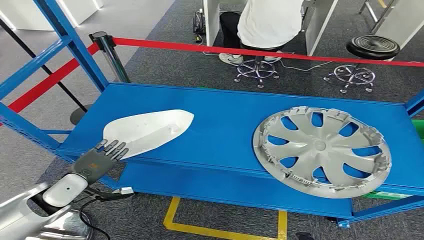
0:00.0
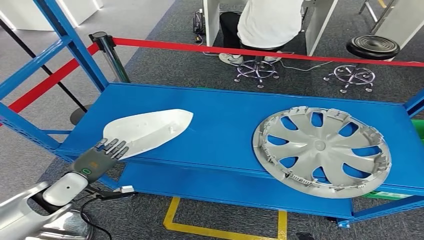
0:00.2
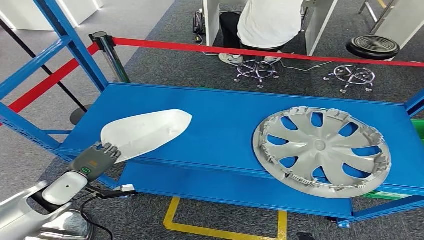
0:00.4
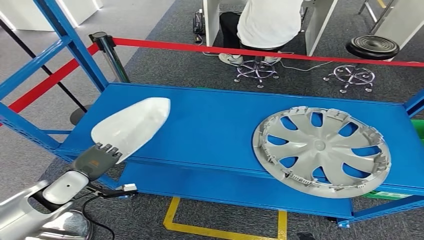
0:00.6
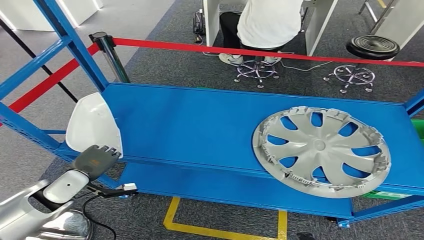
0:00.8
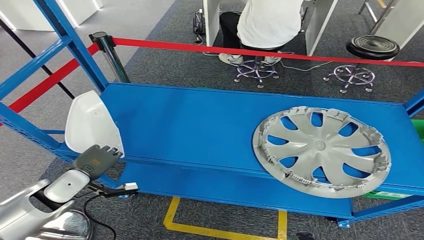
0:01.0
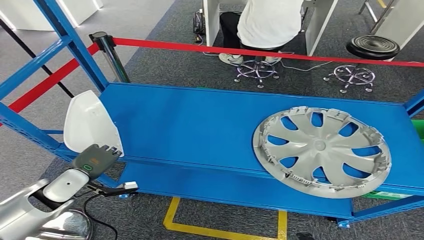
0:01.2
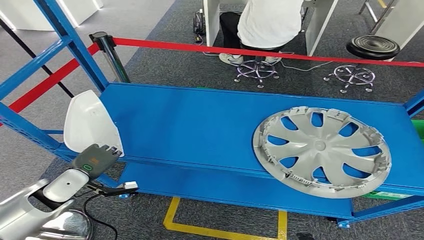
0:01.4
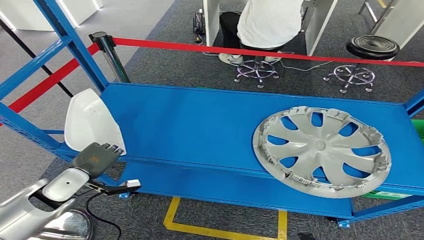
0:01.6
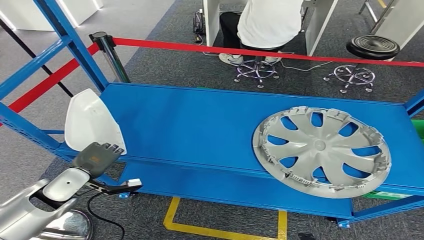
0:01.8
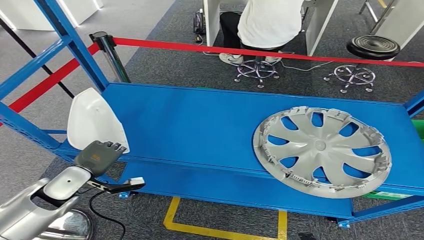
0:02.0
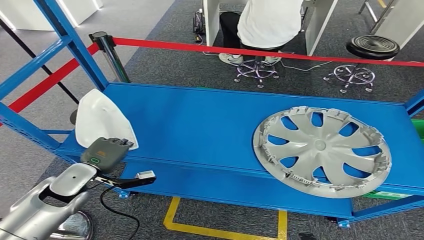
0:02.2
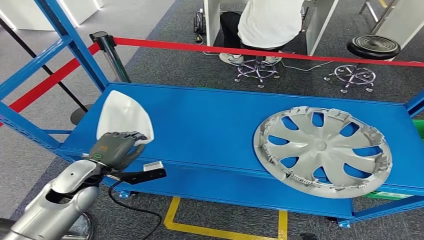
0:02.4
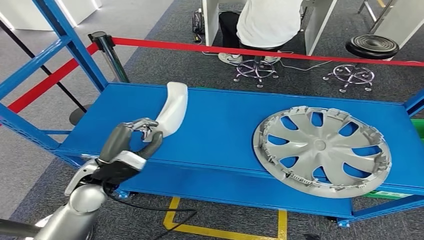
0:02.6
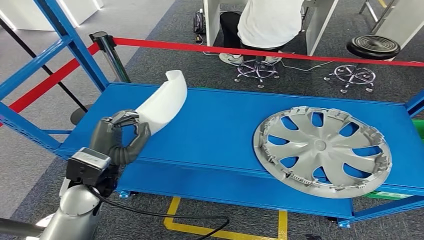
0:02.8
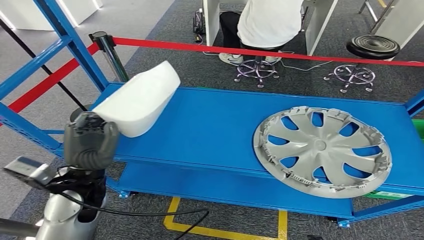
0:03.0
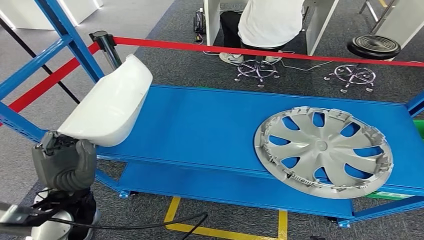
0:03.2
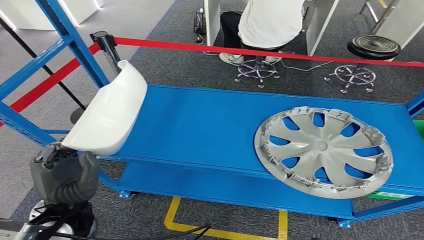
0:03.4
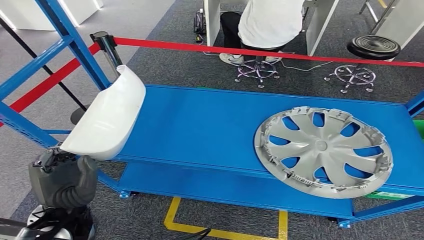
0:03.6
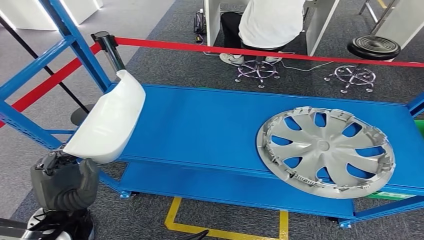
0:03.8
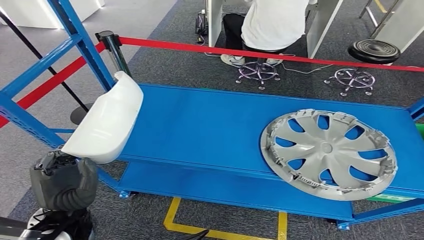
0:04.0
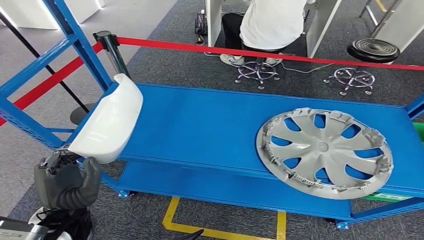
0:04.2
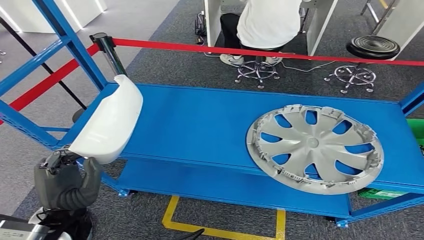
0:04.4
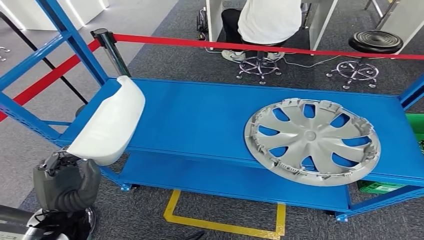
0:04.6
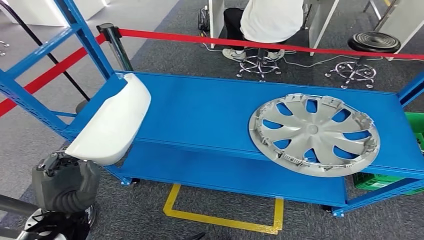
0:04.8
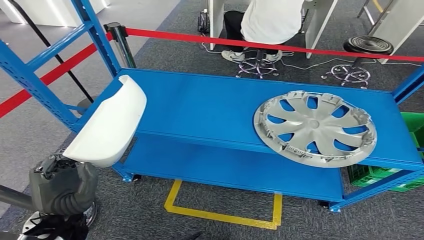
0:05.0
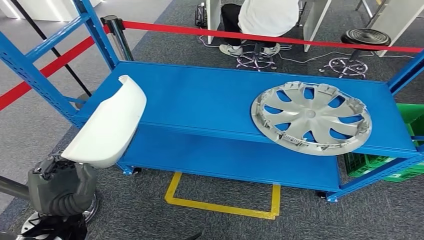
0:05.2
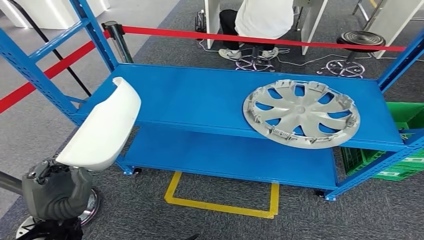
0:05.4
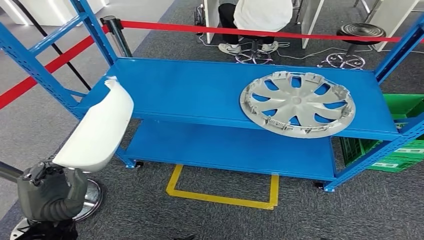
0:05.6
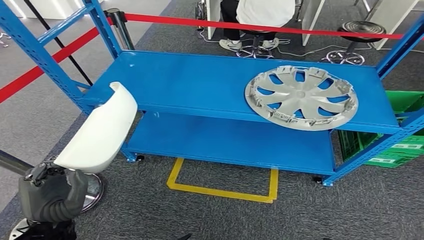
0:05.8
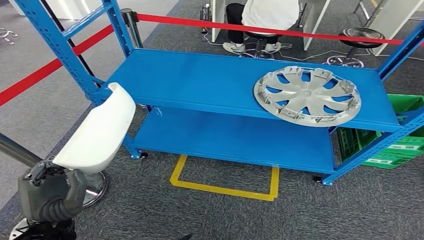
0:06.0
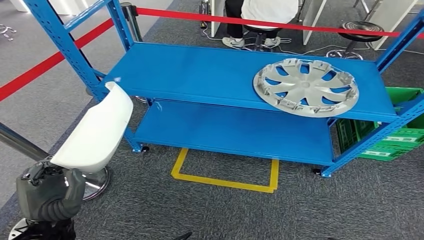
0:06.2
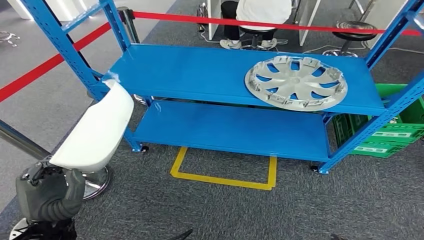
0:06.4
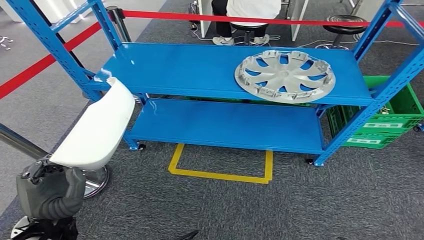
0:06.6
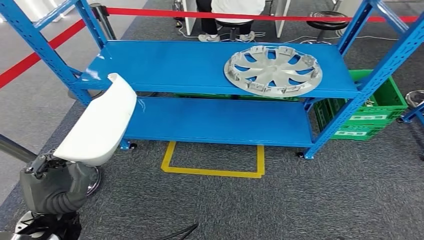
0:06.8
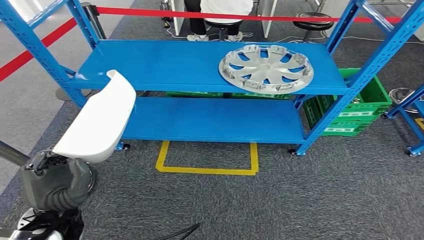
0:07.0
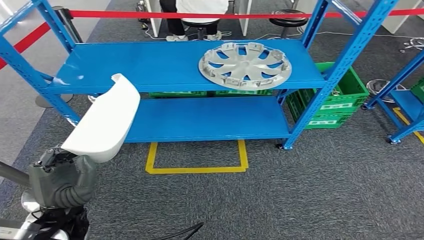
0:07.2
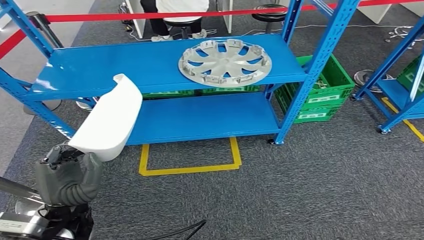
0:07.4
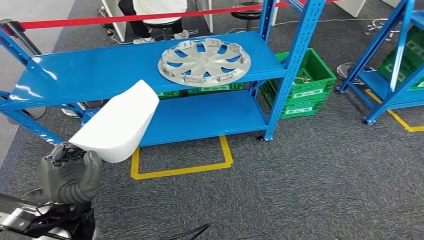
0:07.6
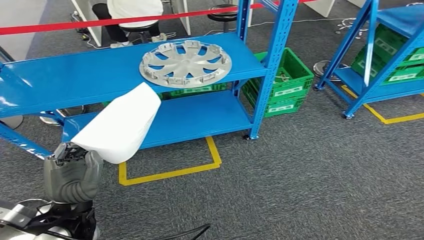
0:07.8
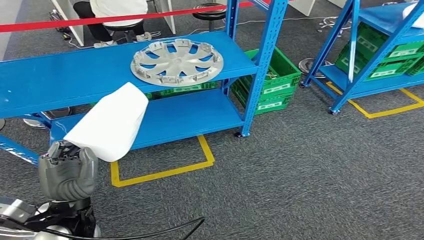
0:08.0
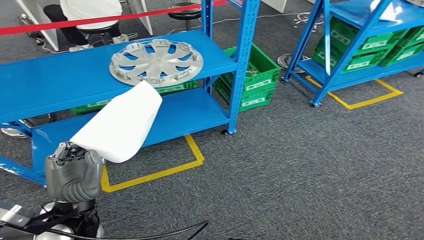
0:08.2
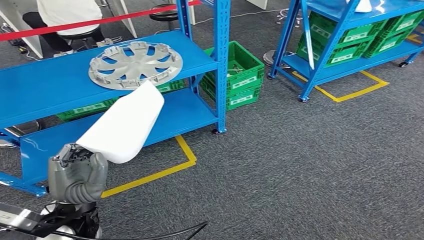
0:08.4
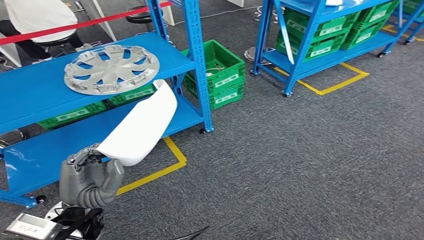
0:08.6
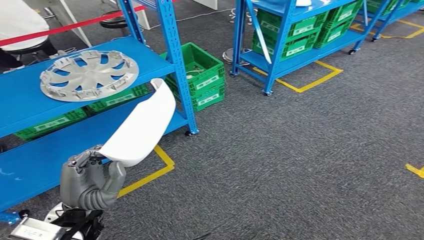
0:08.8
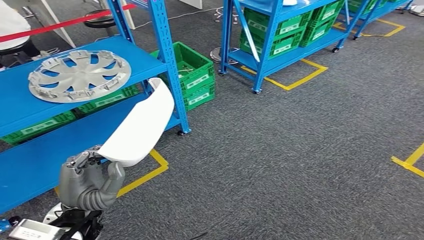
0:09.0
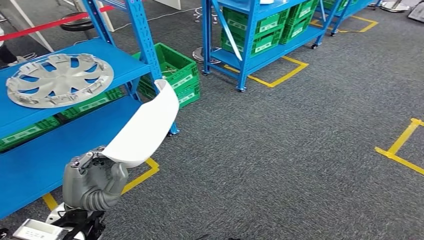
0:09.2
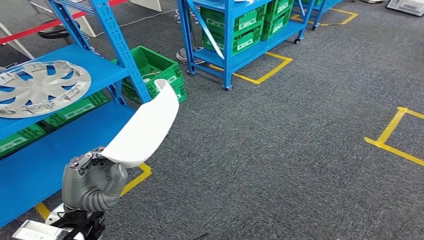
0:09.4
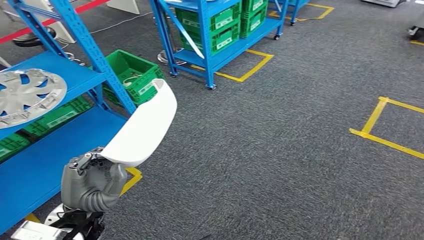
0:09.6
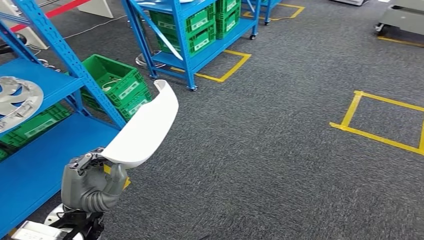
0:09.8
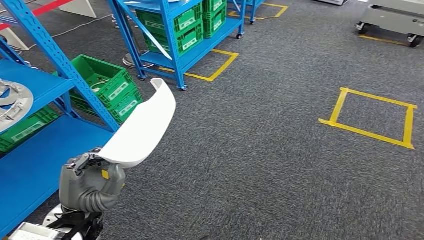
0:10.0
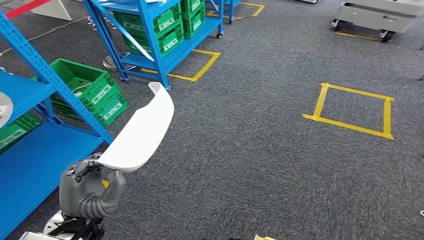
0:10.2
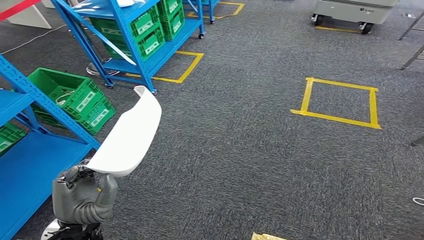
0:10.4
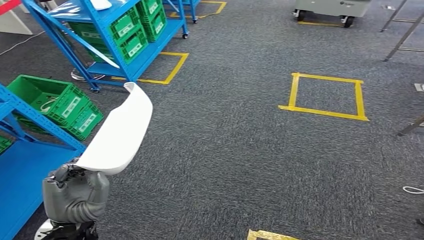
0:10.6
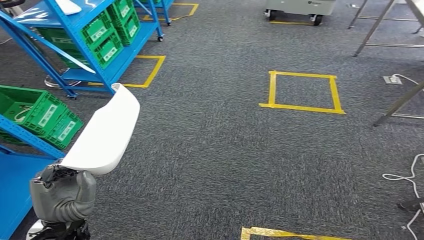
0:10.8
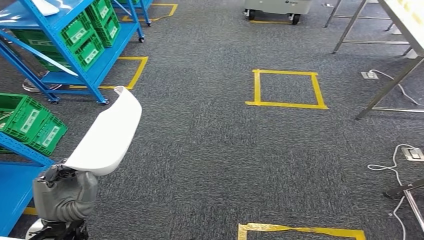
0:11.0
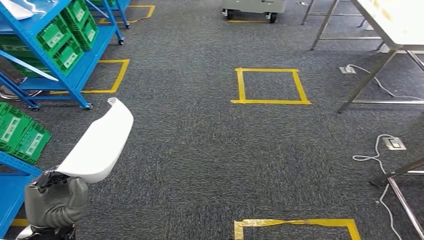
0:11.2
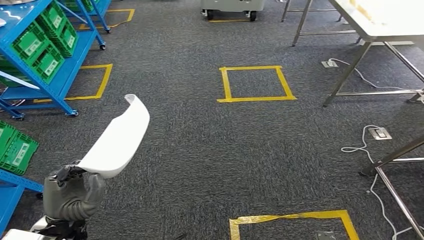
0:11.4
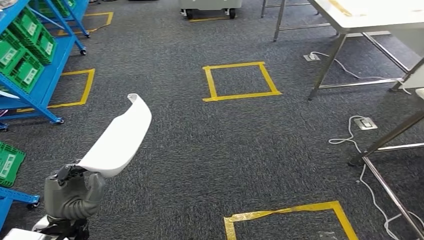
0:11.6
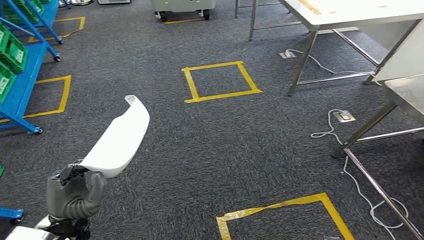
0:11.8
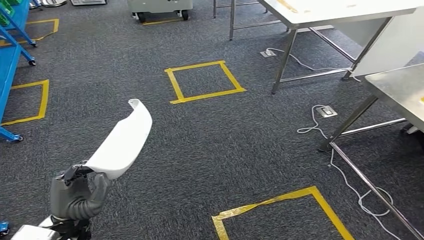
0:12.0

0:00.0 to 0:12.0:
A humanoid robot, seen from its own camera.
Step, 0:00.0 to 0:03.8: Pick up the small component from the shelf.
0:01.6 to 0:03.0: The left hand travels to the right and upward by roughly 15 cm.

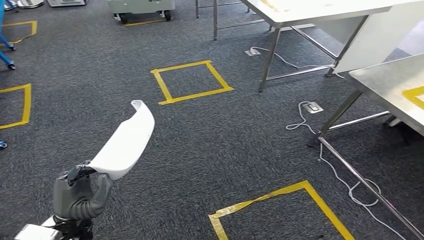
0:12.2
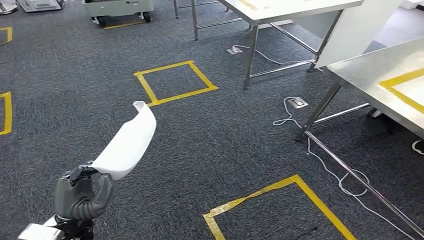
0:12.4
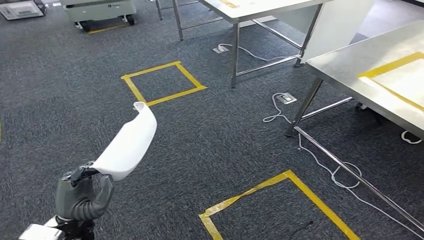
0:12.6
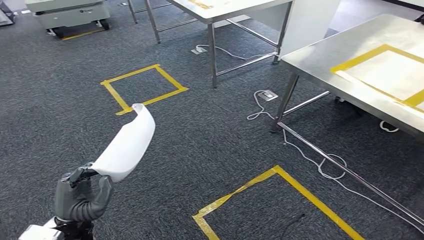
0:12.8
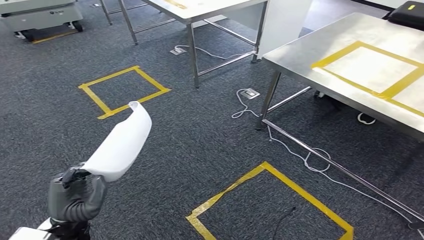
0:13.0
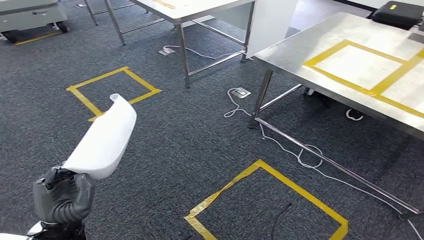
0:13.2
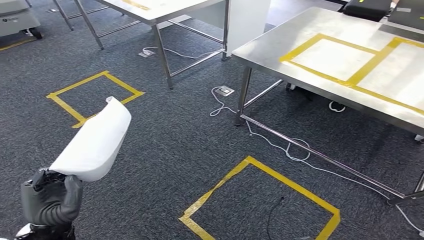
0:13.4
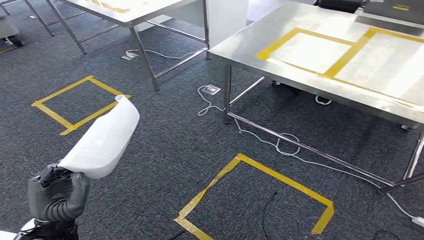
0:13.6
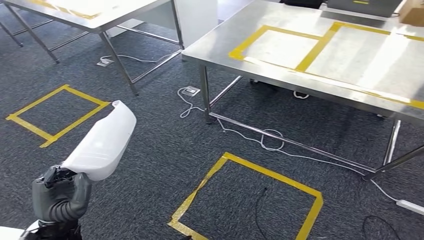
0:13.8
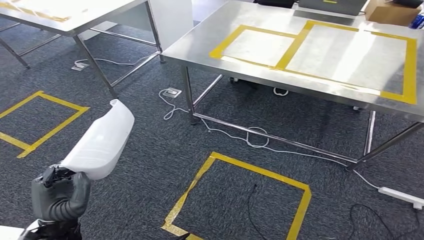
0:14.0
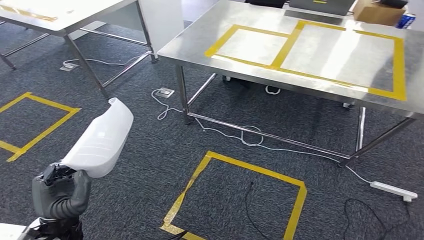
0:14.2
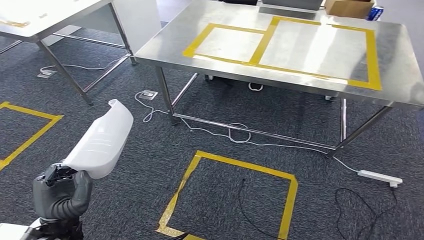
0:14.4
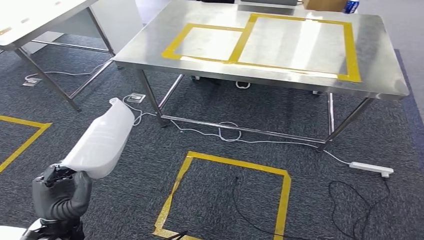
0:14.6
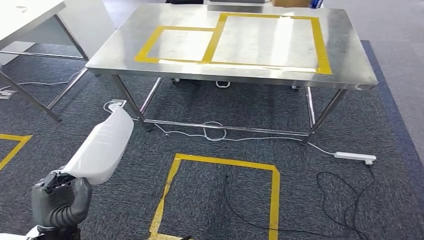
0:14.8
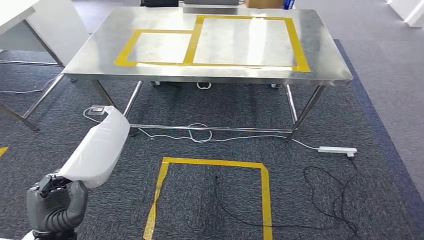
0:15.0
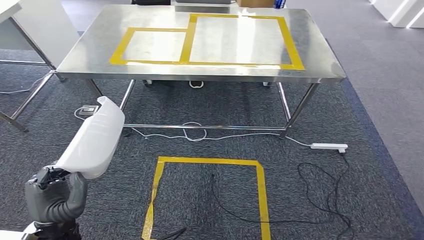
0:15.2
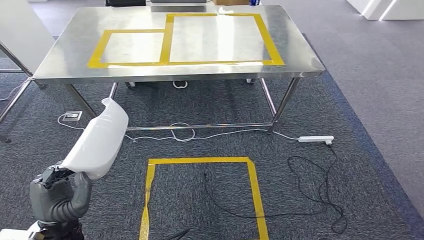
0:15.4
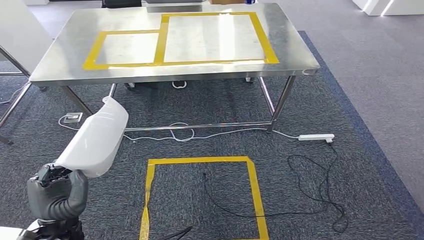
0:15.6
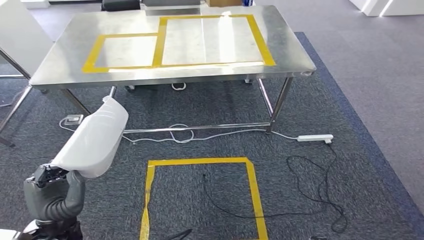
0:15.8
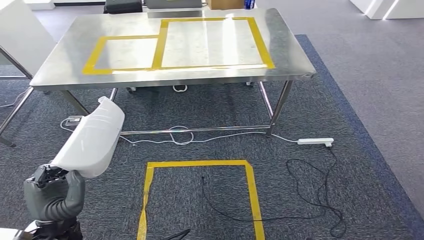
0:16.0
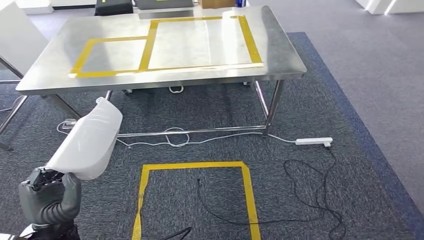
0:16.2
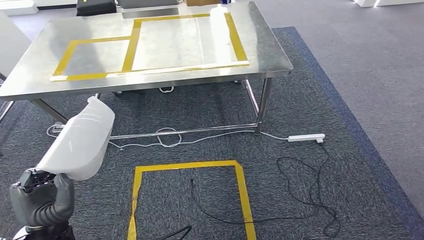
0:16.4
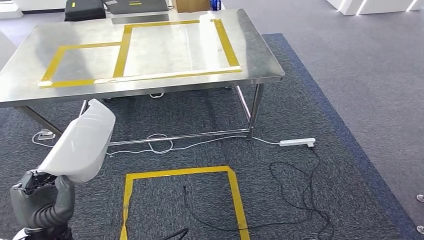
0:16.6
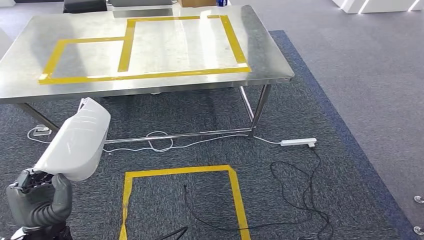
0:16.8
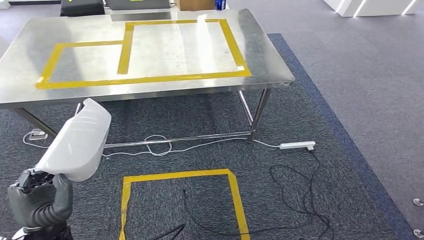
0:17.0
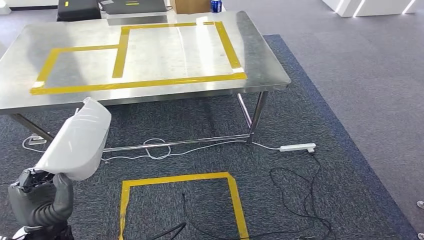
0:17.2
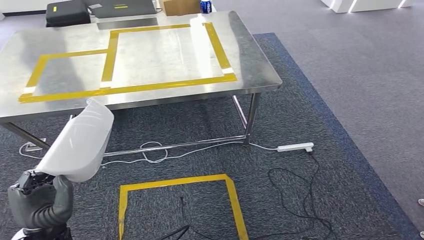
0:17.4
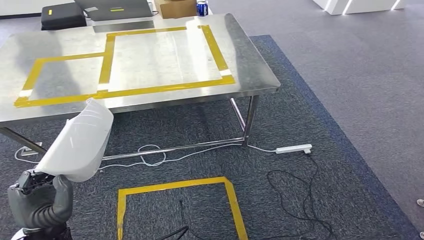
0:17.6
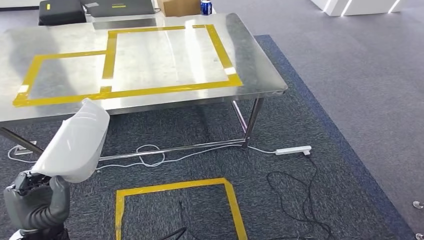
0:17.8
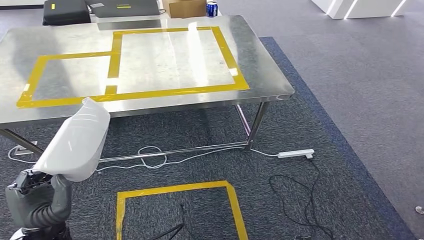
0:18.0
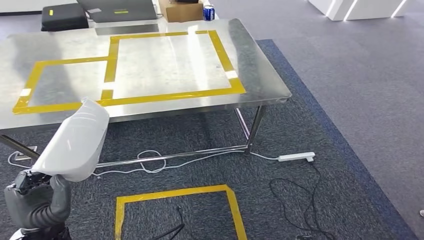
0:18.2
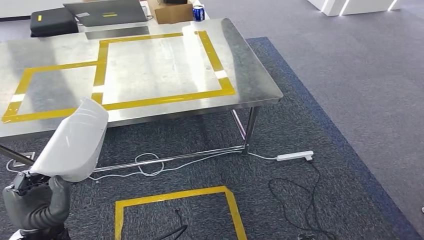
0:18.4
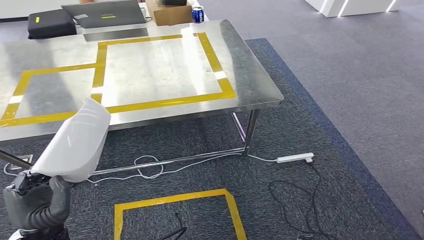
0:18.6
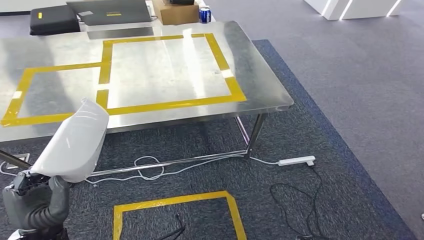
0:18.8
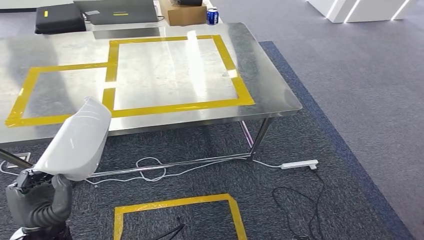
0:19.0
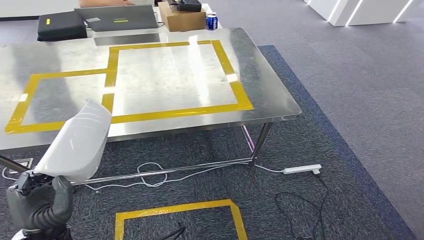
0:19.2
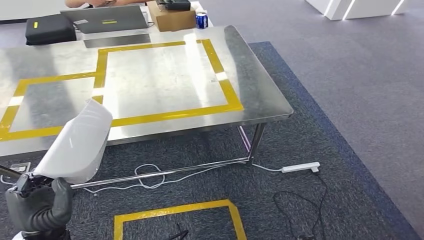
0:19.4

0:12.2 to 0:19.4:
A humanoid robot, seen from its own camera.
Step, 0:12.2 to 0:16.6: Move the small component to the workbench.
